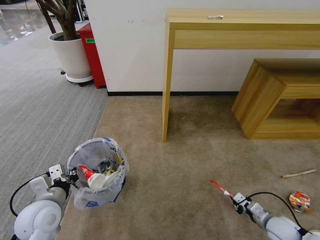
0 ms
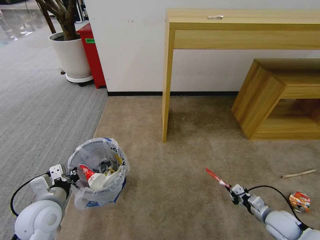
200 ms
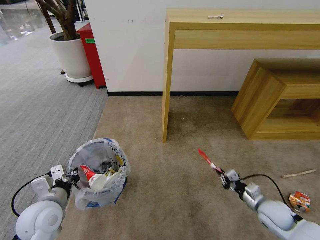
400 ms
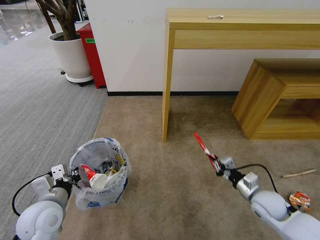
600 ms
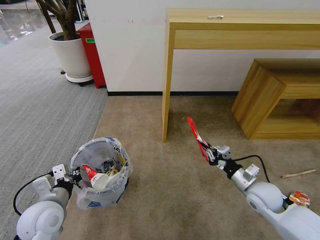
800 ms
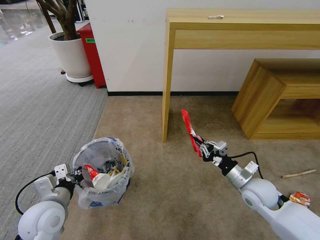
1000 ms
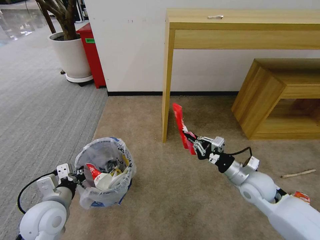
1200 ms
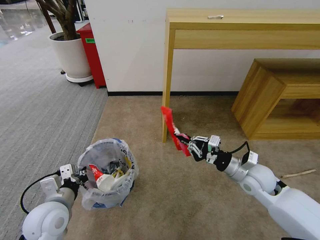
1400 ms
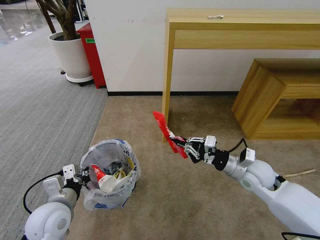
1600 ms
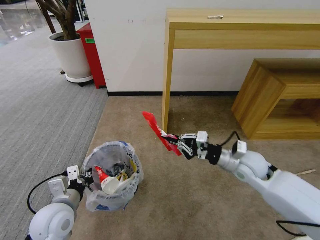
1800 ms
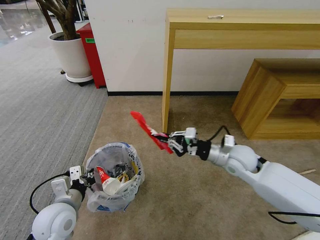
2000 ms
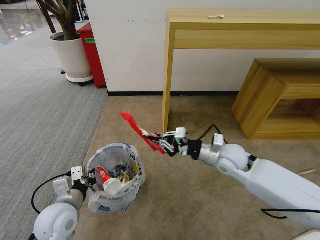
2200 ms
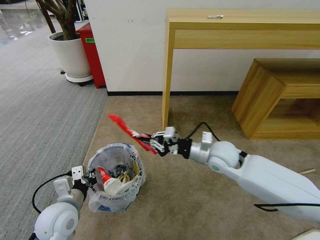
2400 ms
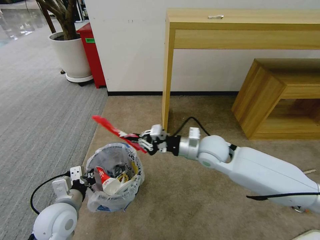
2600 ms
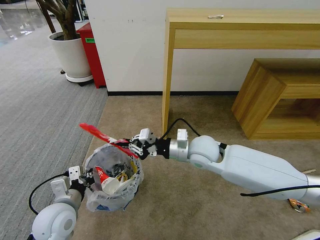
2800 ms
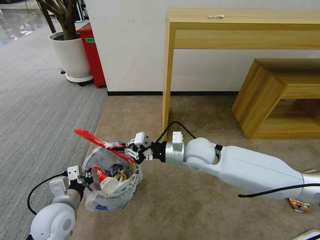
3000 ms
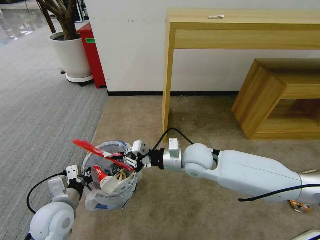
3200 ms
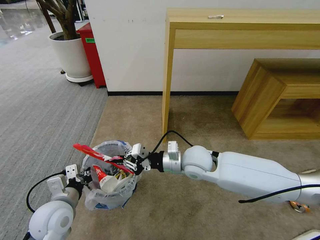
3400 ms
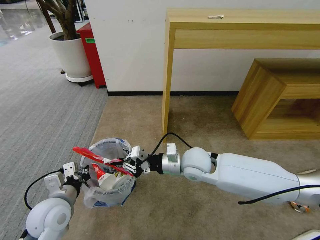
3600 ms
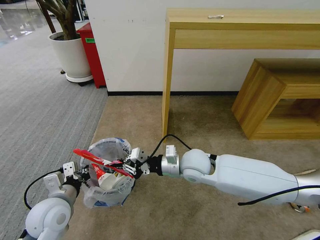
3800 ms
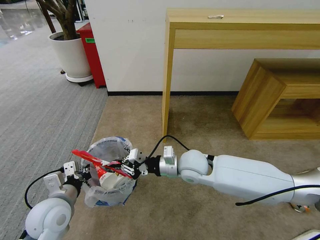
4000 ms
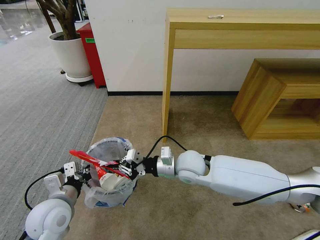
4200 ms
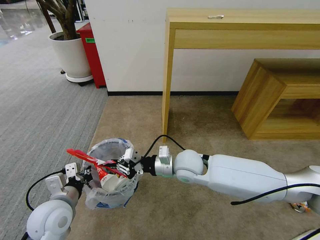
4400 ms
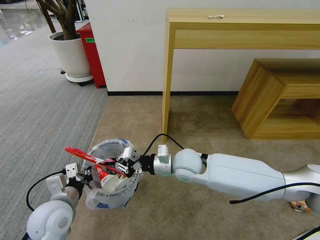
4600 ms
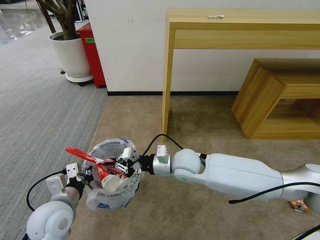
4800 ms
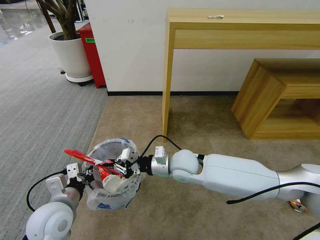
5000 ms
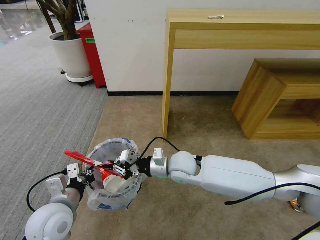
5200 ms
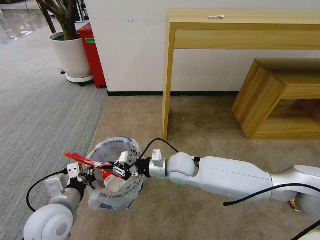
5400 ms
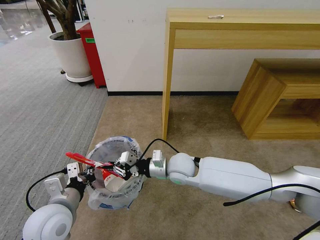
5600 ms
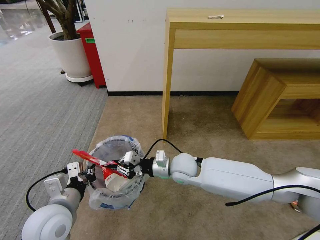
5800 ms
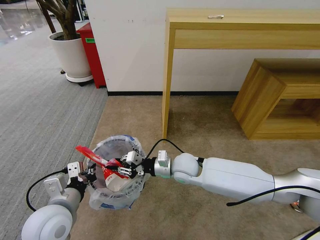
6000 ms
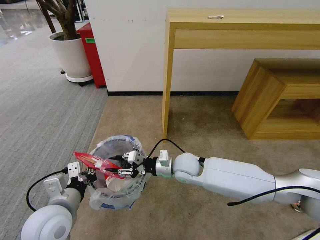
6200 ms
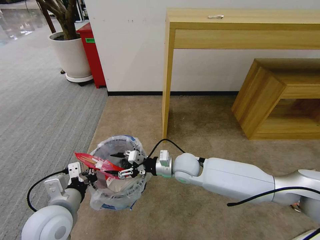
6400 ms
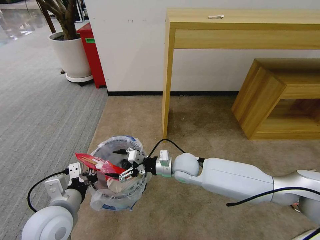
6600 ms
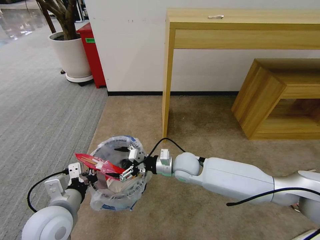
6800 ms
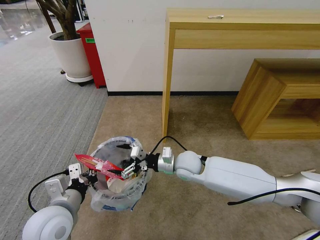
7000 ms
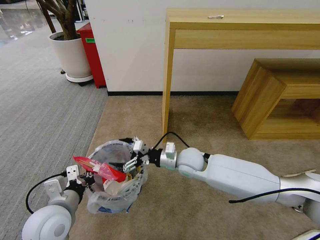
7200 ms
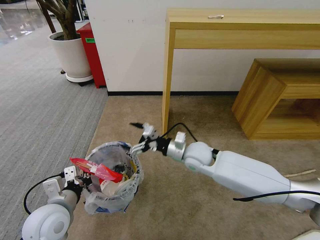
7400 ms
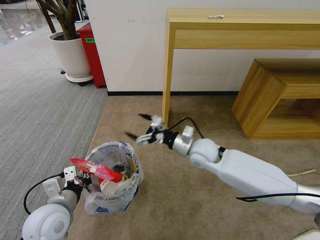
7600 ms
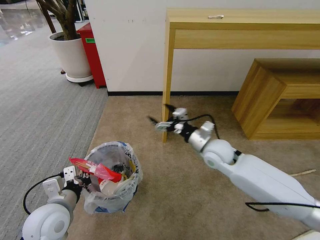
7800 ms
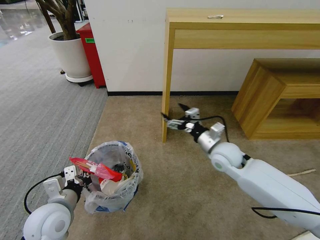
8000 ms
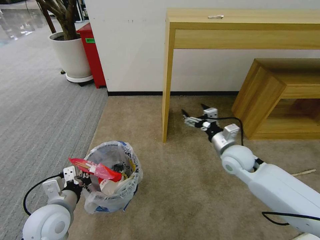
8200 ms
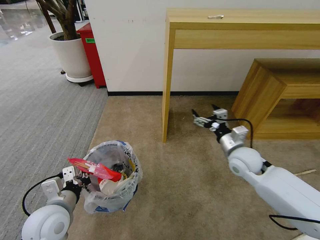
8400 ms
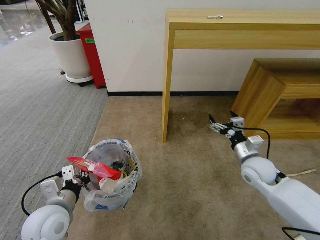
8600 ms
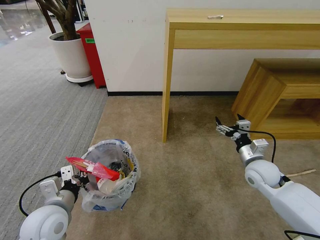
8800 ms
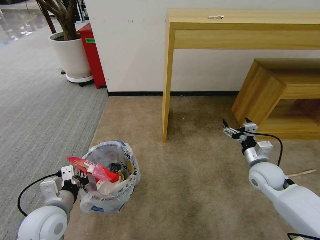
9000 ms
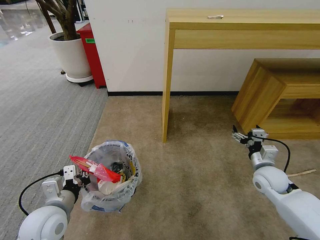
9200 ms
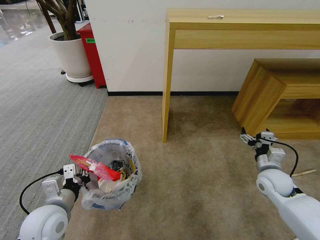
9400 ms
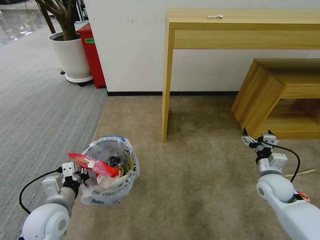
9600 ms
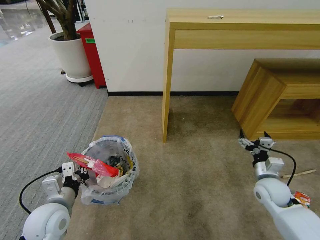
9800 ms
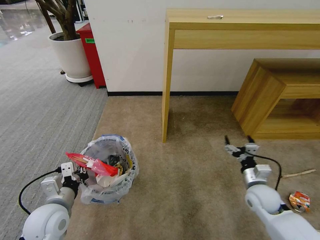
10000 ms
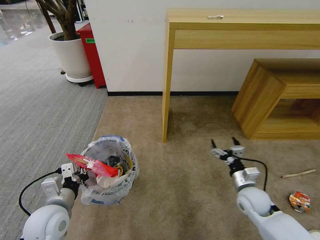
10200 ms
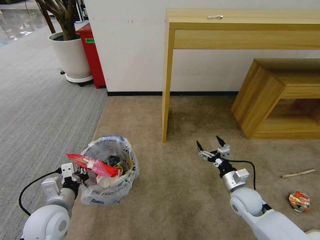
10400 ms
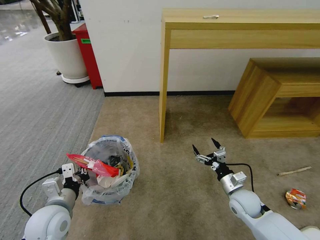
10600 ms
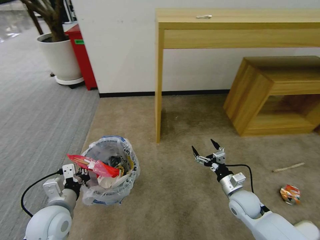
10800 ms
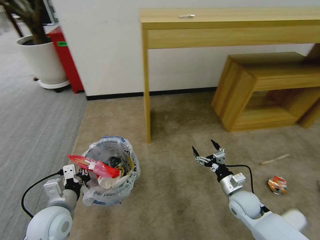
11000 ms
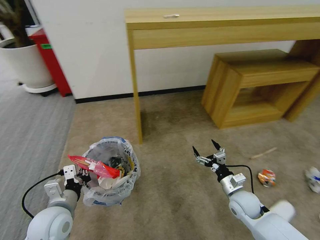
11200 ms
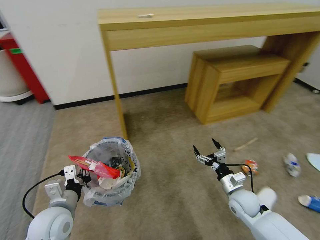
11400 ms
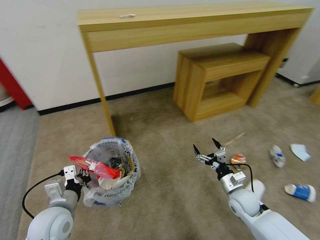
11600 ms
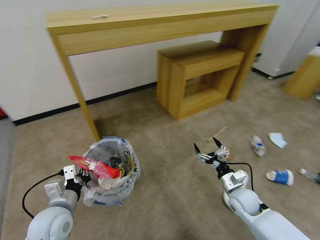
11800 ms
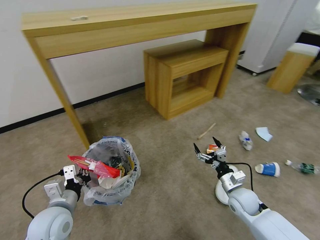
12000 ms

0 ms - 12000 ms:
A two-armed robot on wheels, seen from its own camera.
Task of the whole recording: Pick up the trash bin and place the garbage on the floor into it.
0 ms - 1600 ms: The right gripper moves upward, to the left and forward, approximately 25 cm.
1600 ms - 3000 ms: The right gripper shifts some 15 cm to the left.
3000 ms - 4400 ms: The right gripper ends up about 5 cm from where it was.
4400 ms - 6000 ms: The grippers move only a little.
6000 ms - 7600 ms: The right gripper travels to the right by some 5 cm, and opens up.
7600 ms - 9000 ms: The right gripper shifts roughly 20 cm to the right.
9000 ms - 10400 ms: The right gripper shifts roughly 10 cm downward, to the left and backward.

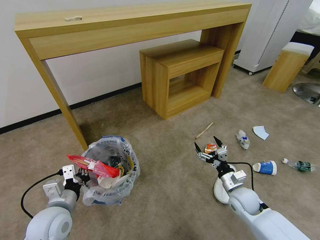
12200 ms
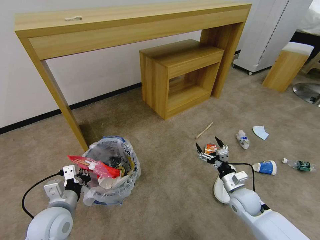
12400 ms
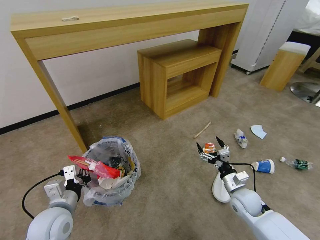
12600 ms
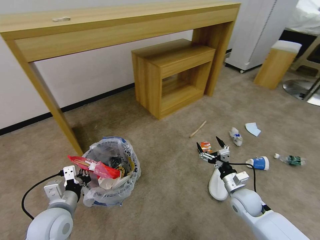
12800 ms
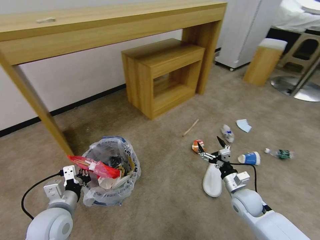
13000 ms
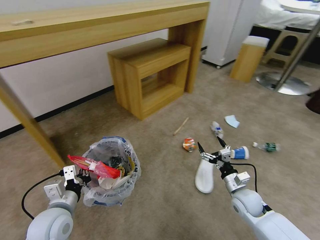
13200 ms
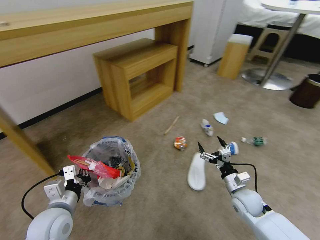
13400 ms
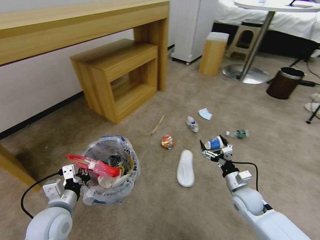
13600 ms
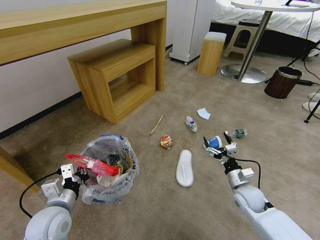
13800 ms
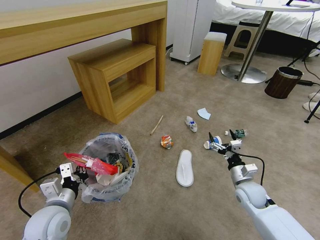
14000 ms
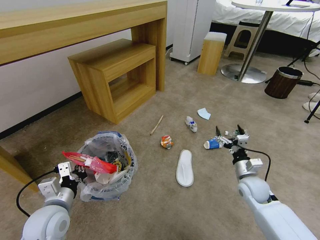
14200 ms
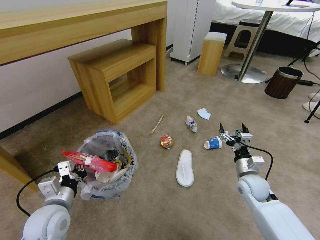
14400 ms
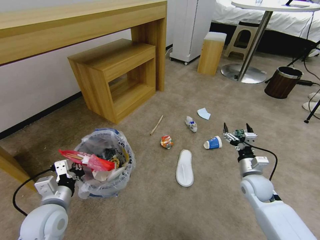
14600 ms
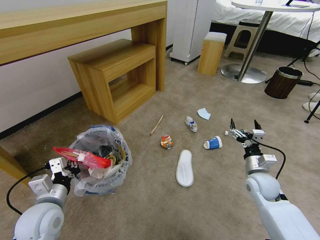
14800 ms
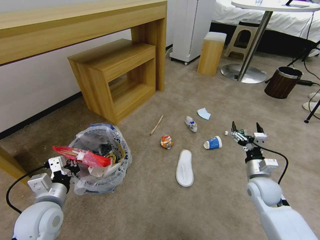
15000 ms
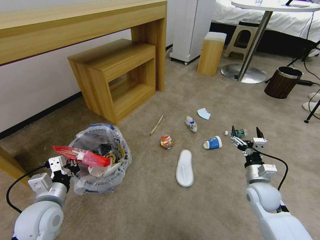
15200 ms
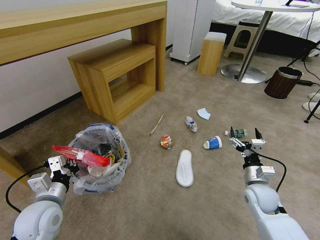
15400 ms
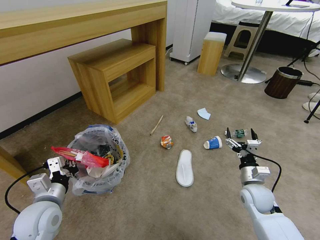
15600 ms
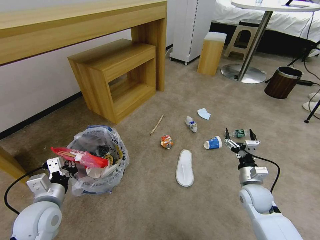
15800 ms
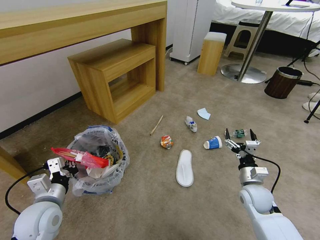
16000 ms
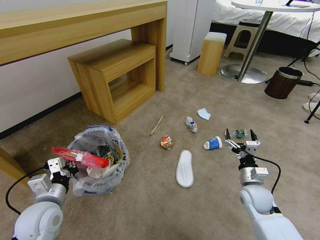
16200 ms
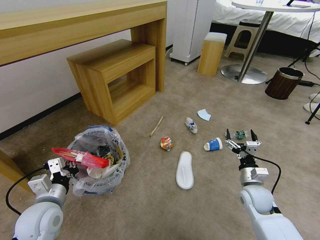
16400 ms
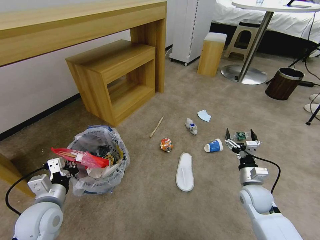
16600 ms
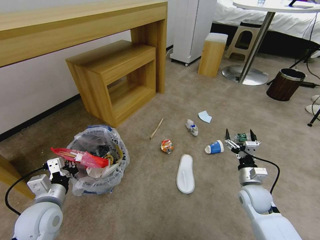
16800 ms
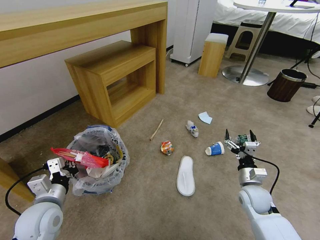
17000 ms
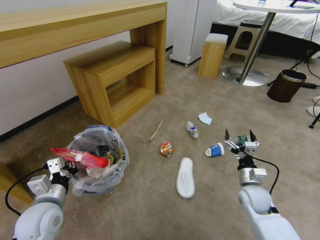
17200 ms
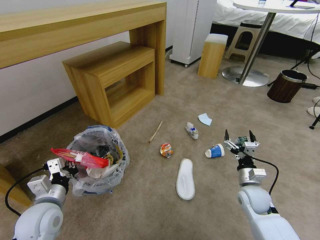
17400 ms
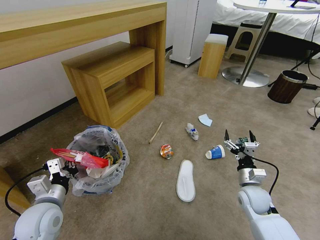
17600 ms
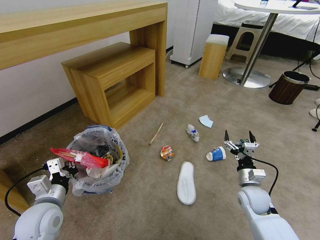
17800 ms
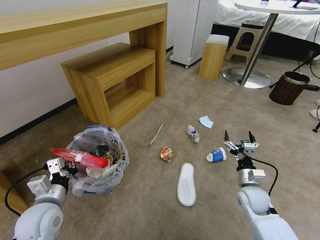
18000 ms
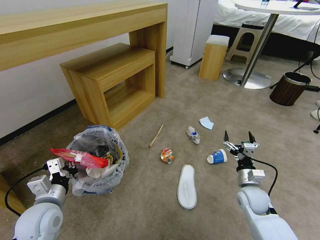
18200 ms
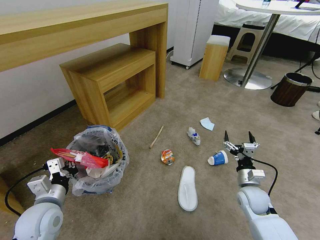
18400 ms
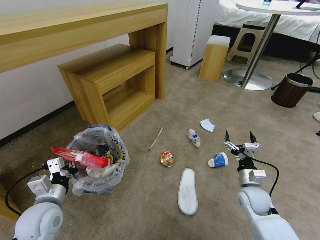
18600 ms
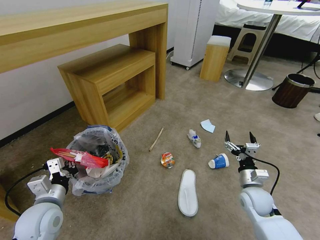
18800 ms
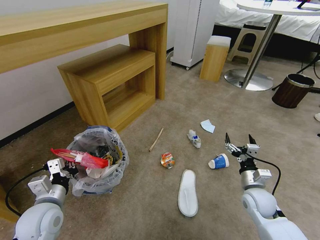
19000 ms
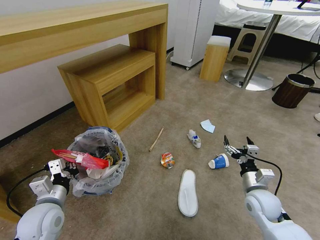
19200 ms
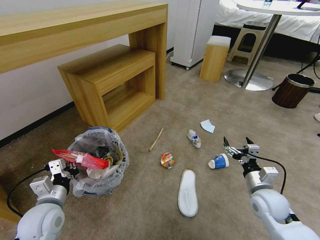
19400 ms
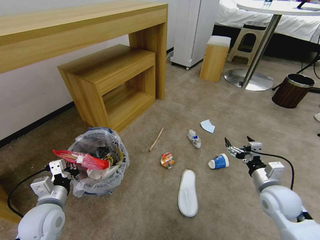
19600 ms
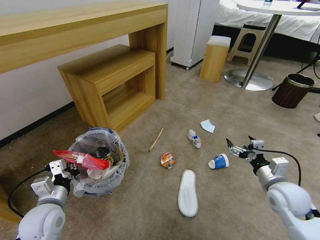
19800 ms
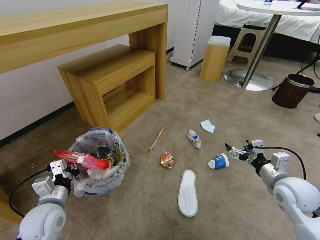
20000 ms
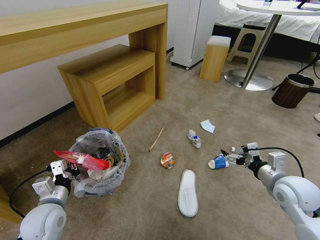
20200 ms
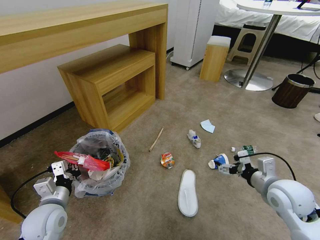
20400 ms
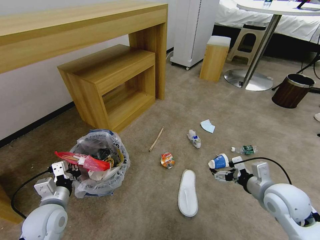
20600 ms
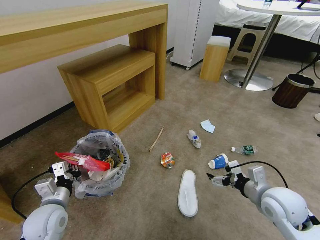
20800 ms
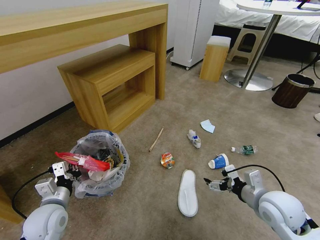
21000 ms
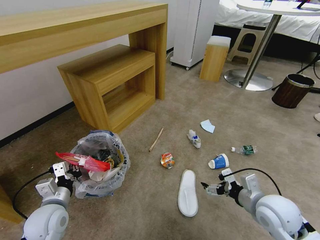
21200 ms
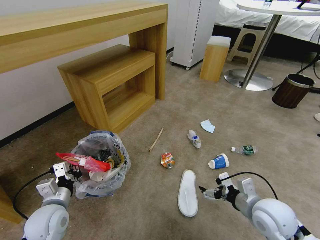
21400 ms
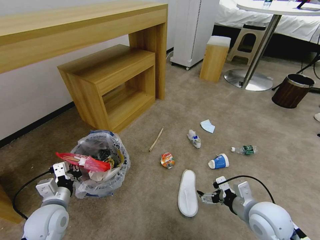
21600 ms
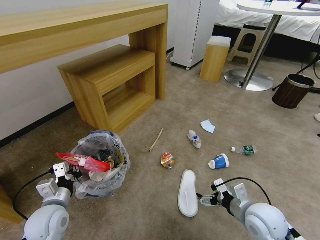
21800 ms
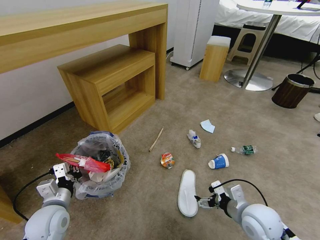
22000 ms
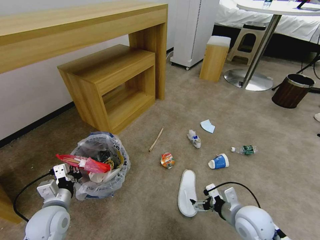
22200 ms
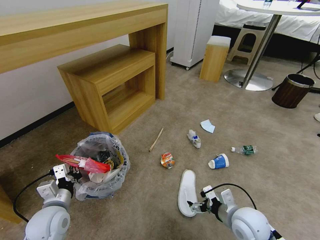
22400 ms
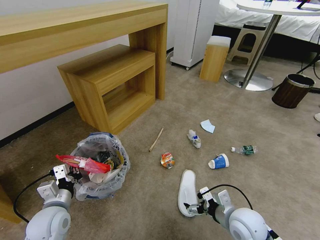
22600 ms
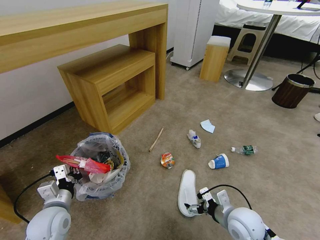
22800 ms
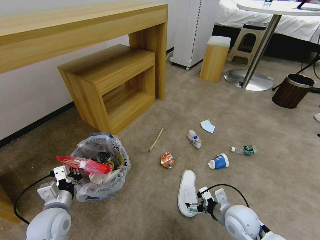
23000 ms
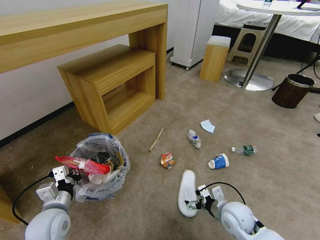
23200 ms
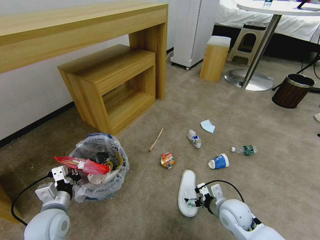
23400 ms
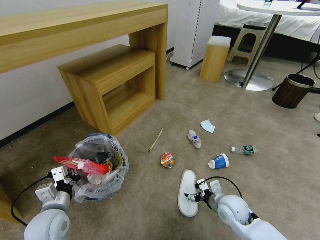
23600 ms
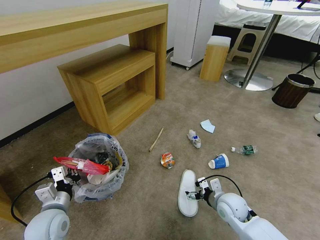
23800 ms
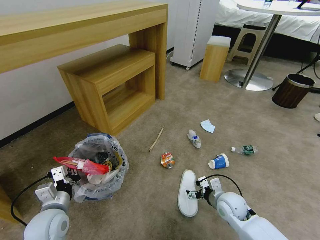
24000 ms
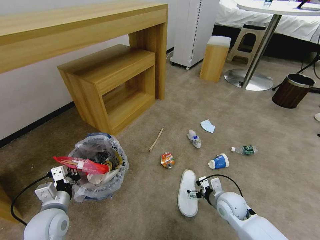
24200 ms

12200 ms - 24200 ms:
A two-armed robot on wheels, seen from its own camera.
Task of the whole recording: Pick up the trash bin and place the garbage on the floor into it.
15200 ms - 16600 ms: There are only small adjustments of the grippers.
16600 ms - 18200 ms: Neither gripper changes place.
18200 ms - 19800 ms: The right gripper shifts roughly 10 cm upward.
19800 ms - 21200 ms: The right gripper moves to the left, some 5 cm.
21200 ms - 22600 ms: The right gripper heads downward and to the left, covering approximately 10 cm.
22600 ms - 24200 ms: The right gripper moves forward and downward, about 10 cm.
